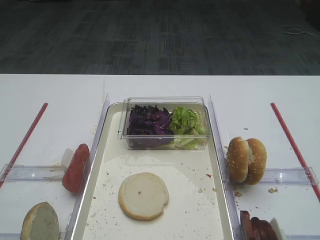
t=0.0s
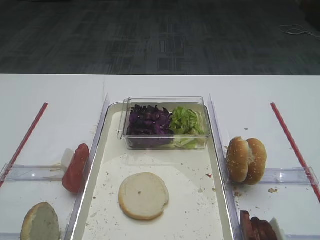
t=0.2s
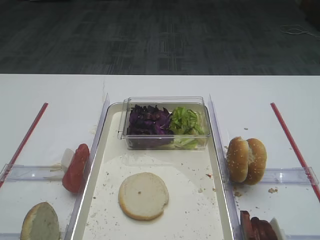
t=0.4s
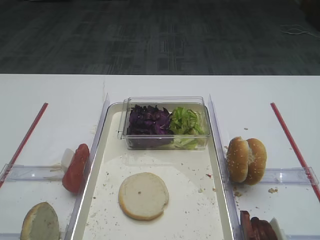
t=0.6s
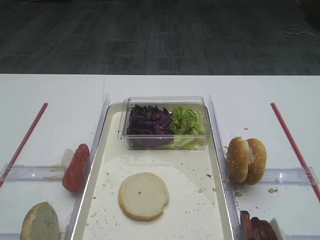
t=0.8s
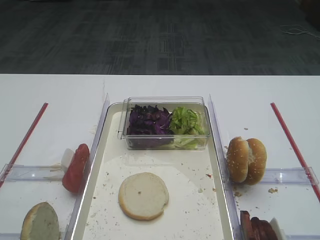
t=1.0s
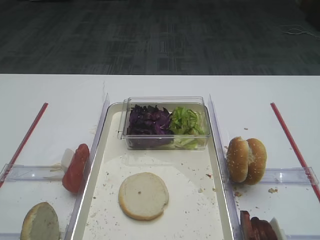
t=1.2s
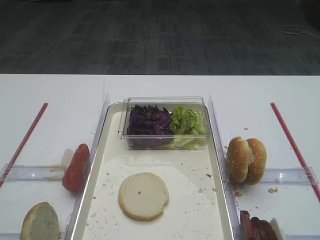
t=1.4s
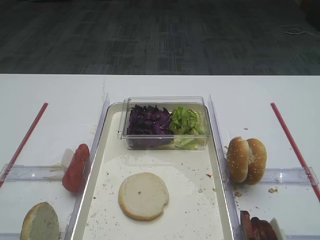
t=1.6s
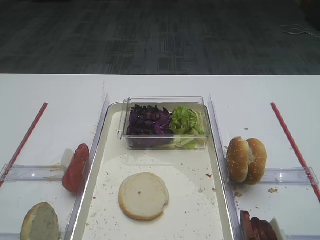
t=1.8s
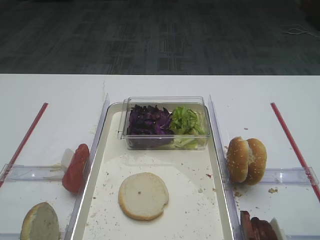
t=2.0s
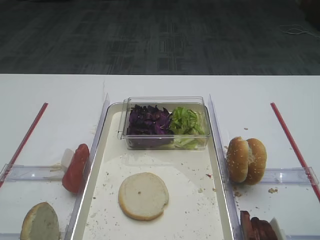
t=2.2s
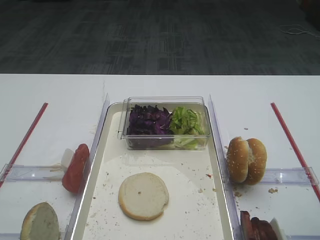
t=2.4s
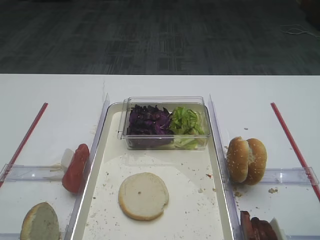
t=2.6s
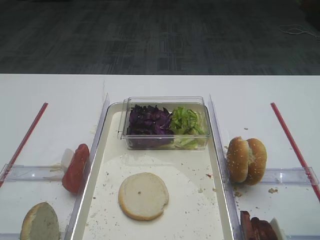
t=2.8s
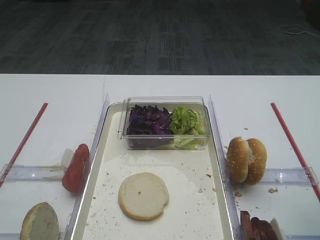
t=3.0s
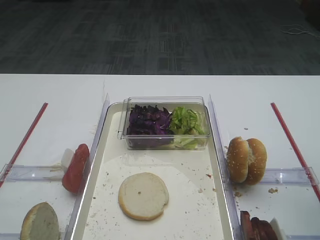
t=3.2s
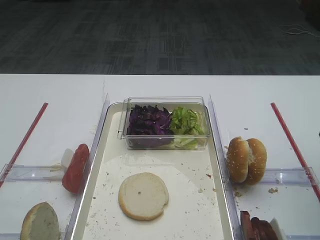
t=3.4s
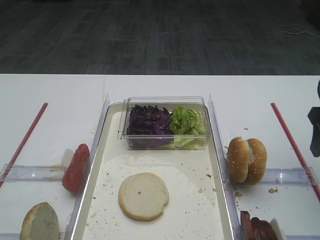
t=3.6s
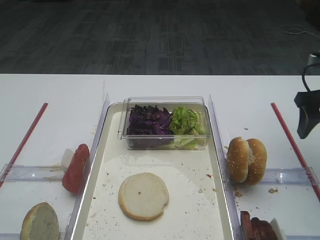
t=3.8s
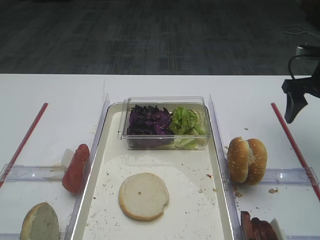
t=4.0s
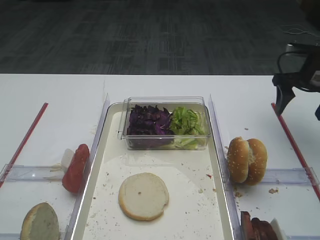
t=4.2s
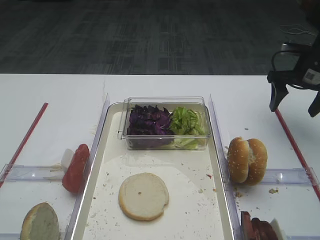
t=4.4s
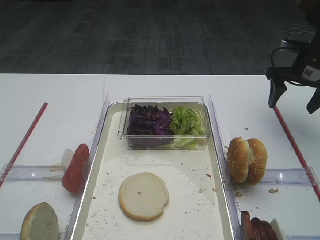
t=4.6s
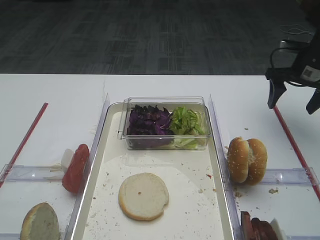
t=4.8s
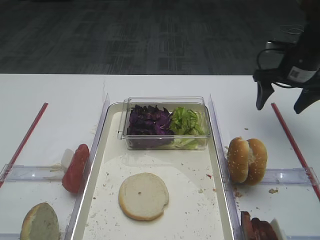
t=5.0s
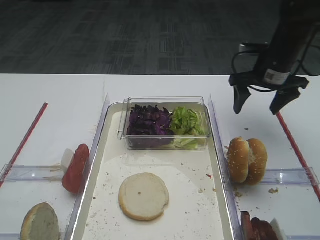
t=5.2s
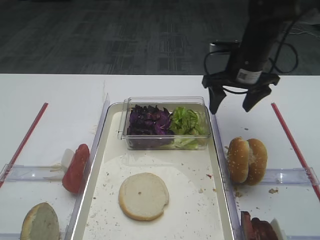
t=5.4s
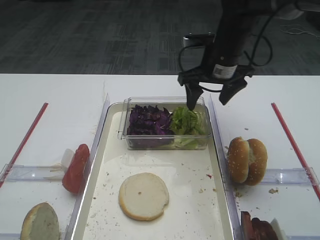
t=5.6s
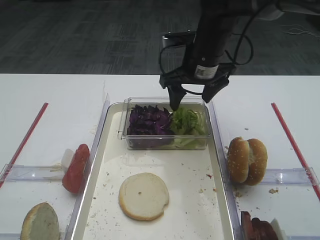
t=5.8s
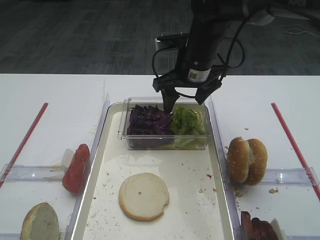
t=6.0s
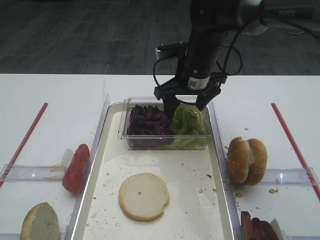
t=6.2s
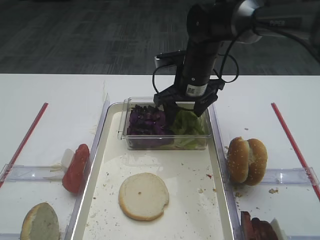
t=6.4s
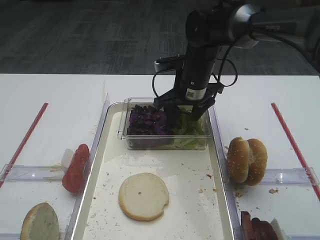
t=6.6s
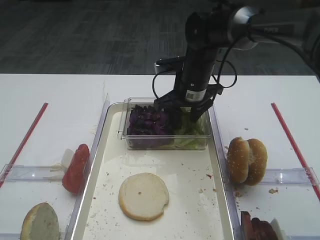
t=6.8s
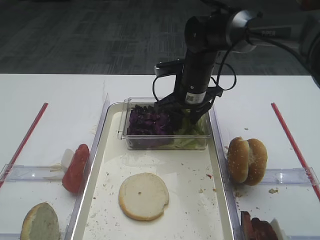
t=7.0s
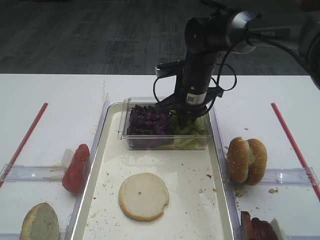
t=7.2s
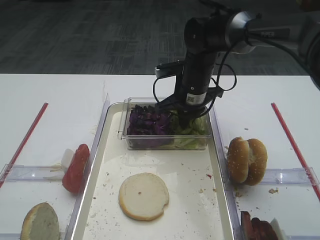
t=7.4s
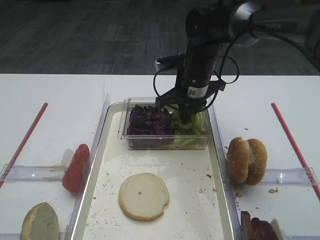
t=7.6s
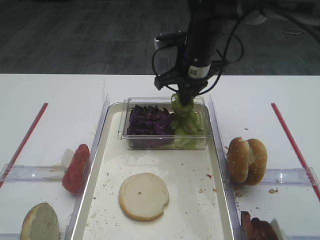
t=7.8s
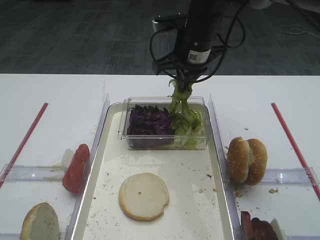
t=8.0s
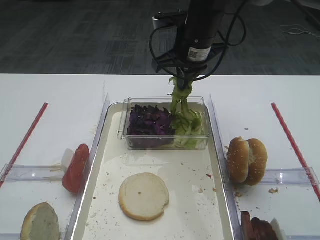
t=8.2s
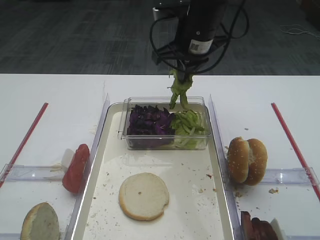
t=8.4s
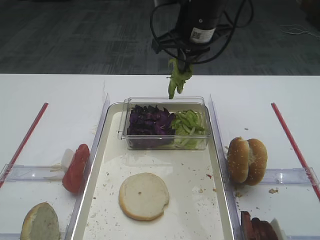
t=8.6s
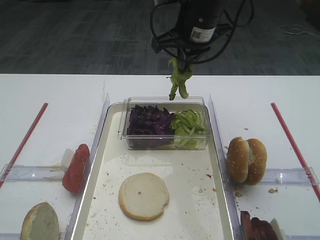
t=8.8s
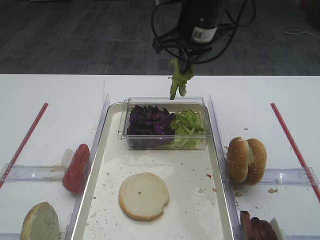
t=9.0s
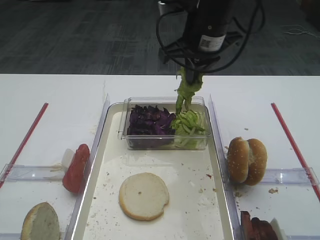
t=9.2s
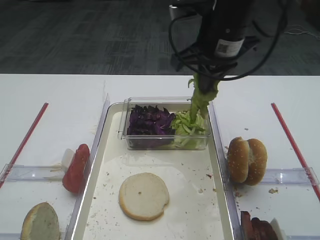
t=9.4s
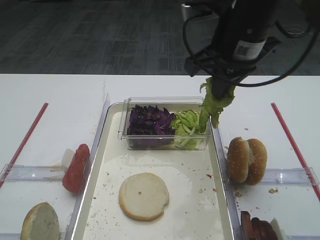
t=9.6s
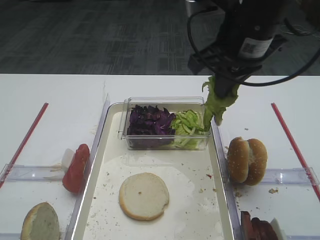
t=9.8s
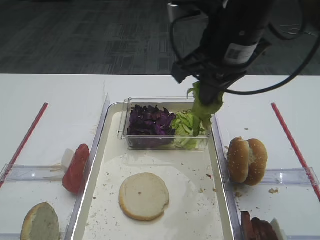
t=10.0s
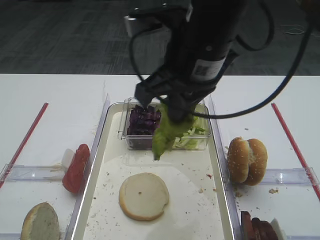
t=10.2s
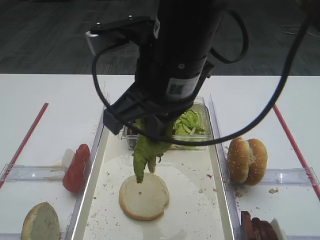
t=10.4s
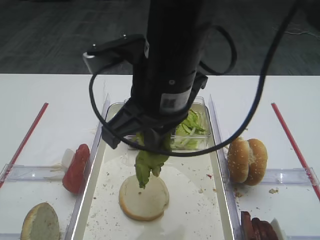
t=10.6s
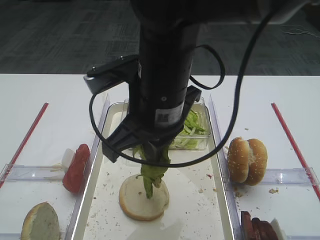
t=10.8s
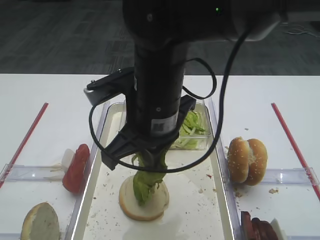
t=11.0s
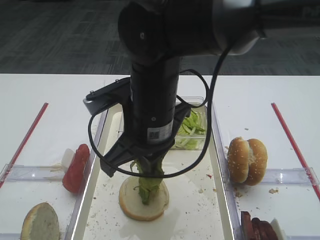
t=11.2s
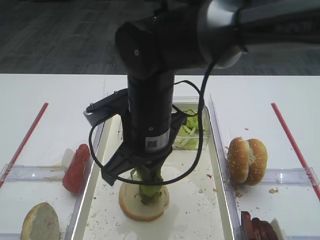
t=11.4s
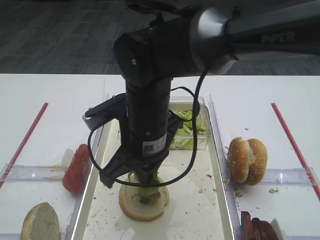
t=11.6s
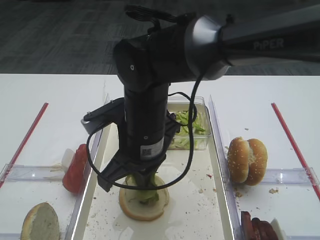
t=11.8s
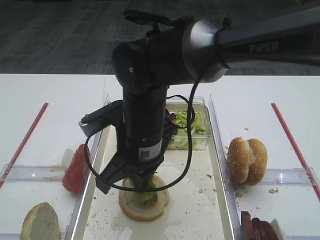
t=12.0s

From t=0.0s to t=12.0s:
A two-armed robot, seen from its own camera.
Step, from t=0.0s to t=7.4s: Pick up the lettuce leaf with the right gripper.
From t=3.0s to t=4.4s: The right gripper shifts roughly 25 cm forward.
From t=4.4s to t=6.0s: The right gripper is displaced to the left by about 25 cm.
From t=6.0s to t=7.6s: The right gripper closes up.
From t=7.6s to t=9.0s: The right gripper moves upward, about 10 cm.
From t=9.0s to t=10.4s: The right gripper shifts about 20 cm backward.
From t=10.4s to t=12.0s: The right gripper travels downward by approximately 15 cm.

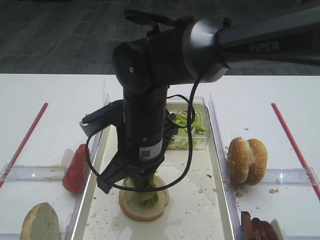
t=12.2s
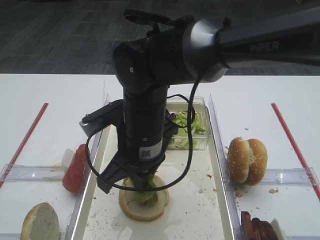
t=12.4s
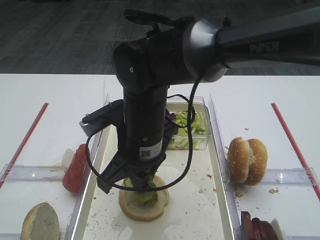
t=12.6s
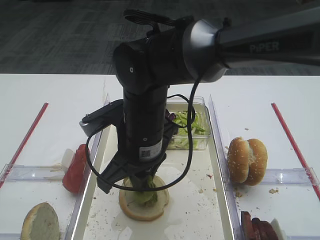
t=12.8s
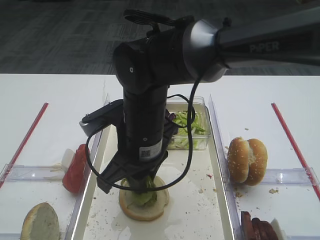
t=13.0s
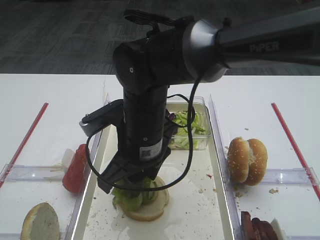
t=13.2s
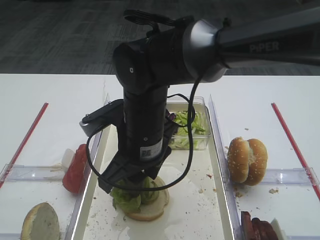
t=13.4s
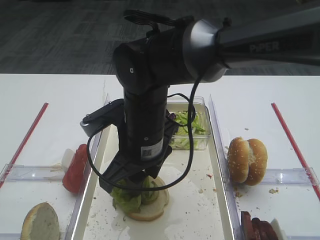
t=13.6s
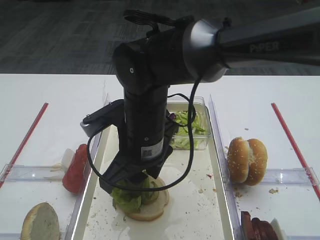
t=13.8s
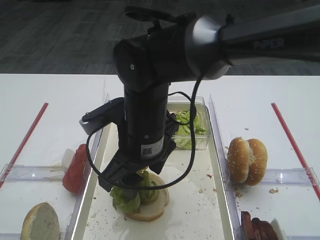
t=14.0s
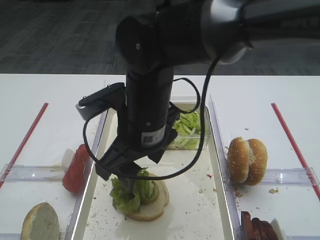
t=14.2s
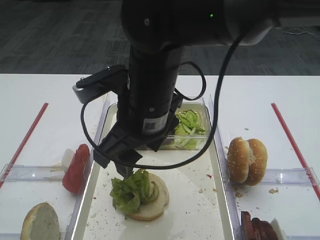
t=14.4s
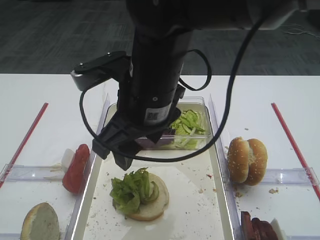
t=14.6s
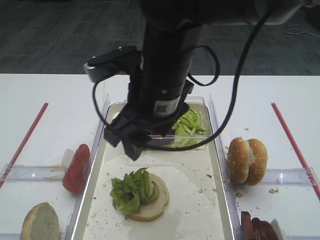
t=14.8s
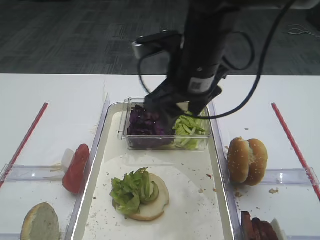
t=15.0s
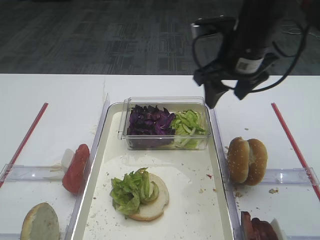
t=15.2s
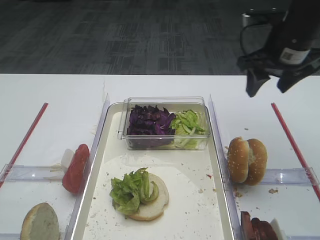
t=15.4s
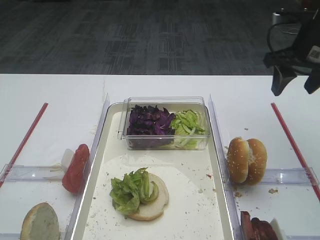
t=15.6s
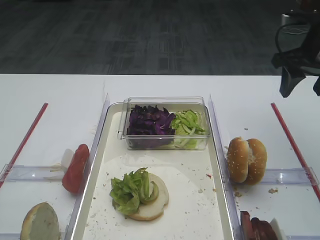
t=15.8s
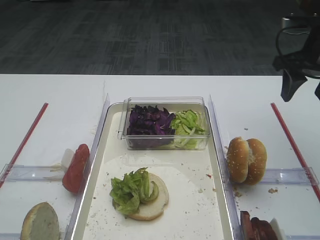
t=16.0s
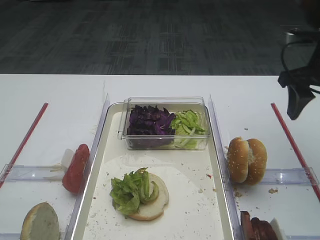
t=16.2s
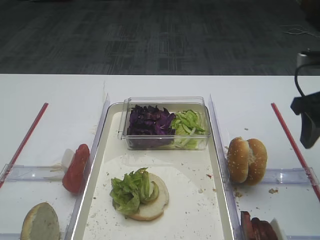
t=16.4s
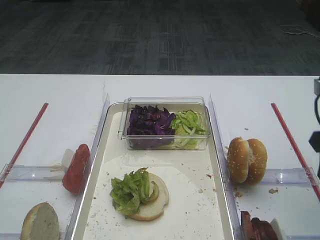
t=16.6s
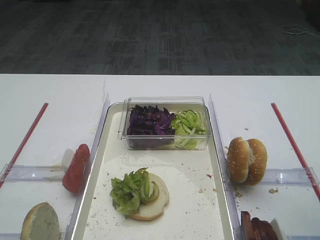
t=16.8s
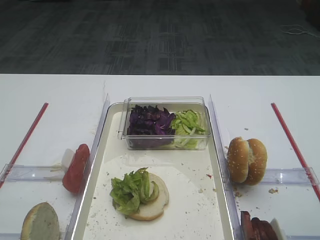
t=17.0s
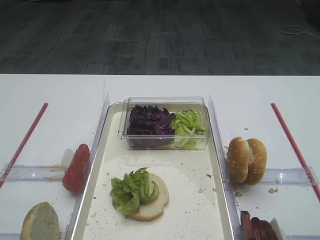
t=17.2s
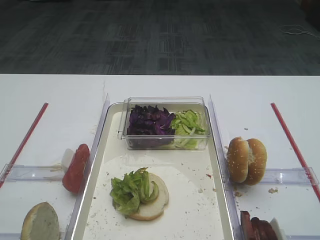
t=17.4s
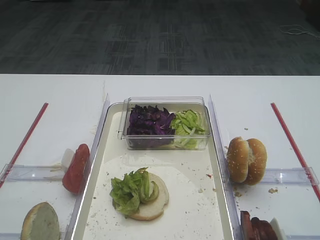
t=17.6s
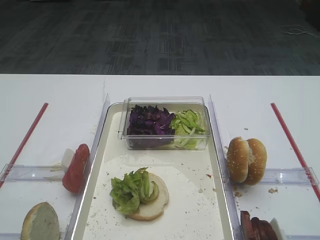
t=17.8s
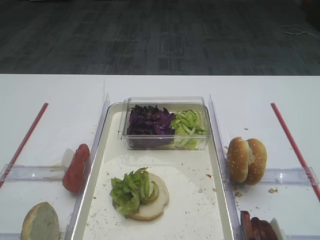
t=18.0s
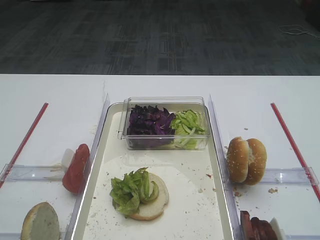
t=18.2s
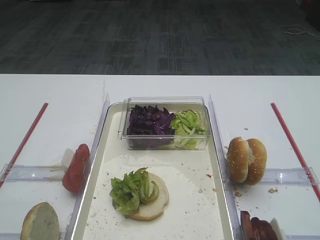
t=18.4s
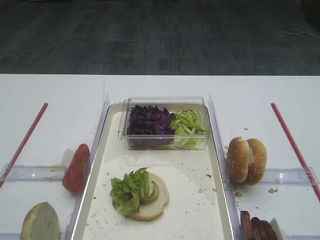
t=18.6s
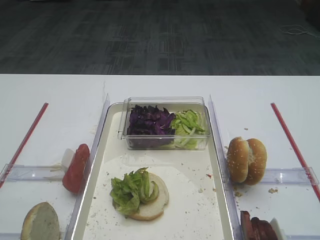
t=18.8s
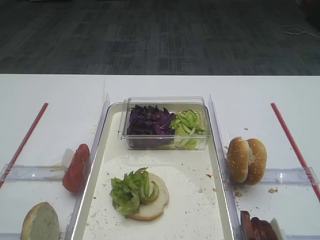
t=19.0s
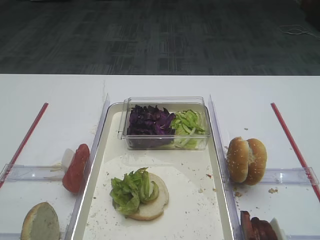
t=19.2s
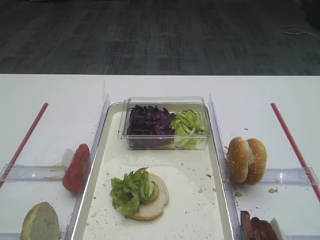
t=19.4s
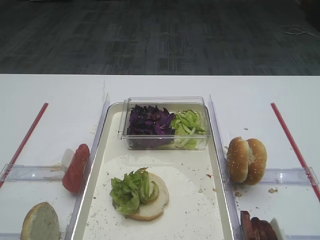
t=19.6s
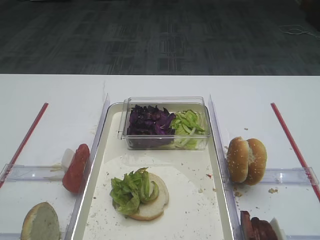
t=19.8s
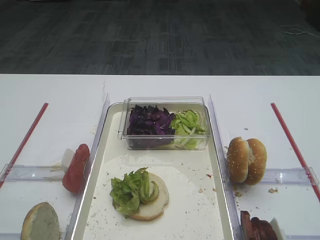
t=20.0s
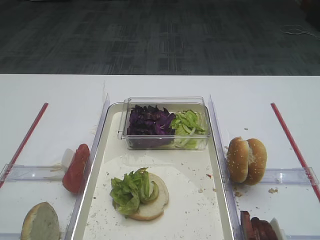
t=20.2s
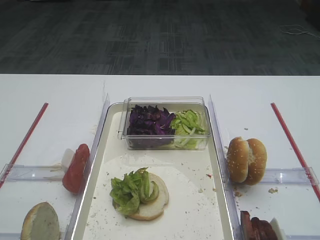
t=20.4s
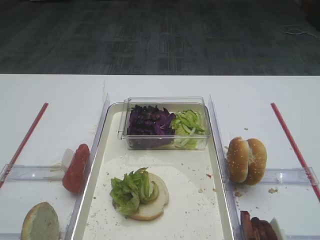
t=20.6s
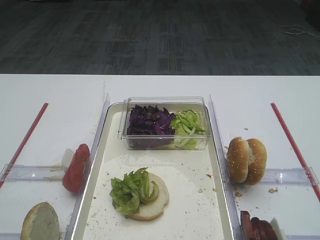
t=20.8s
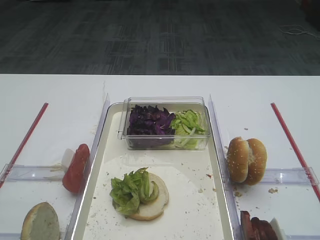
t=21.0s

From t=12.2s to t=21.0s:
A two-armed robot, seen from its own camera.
Step, from t=12.2s to t=15.4s: Place the lettuce leaf on the bread slice with the right gripper.
From t=12.2s to t=13.6s: The right gripper opens its fingers.
From t=13.6s to t=15.2s: The right gripper heads to the right, forward and upward, covering some 20 cm.
From t=15.2s to t=16.6s: The right gripper shifts roughly 20 cm to the right and backward.
From t=16.6s to t=18.0s: The right gripper moves backward, roughly 20 cm.
From t=18.0s to t=21.0s: The two grippers keep their place.

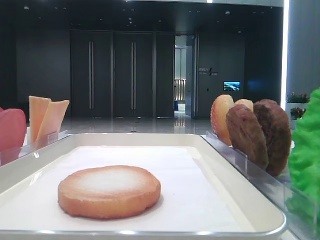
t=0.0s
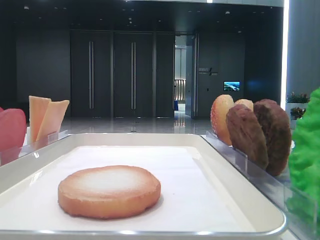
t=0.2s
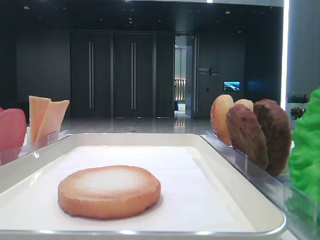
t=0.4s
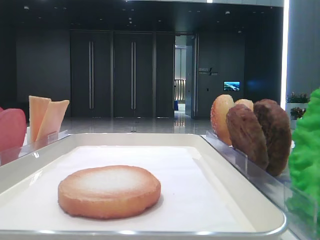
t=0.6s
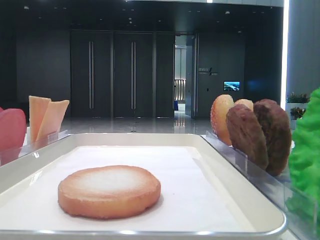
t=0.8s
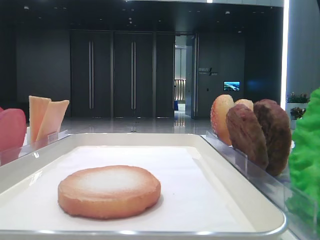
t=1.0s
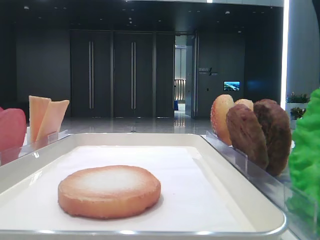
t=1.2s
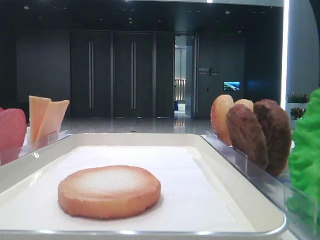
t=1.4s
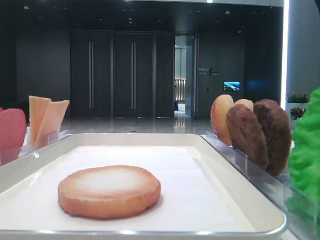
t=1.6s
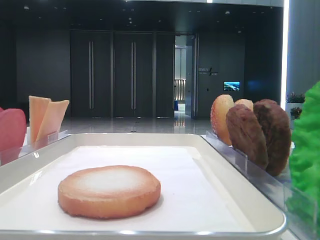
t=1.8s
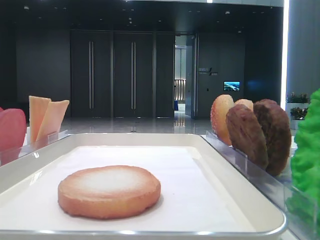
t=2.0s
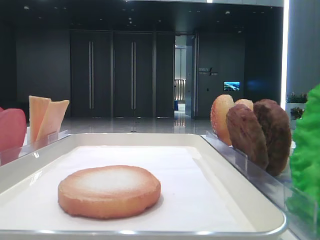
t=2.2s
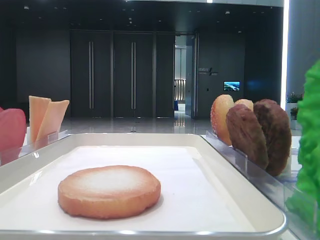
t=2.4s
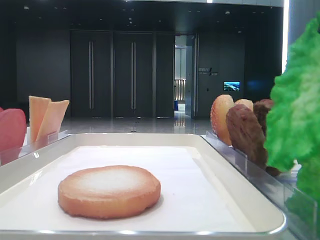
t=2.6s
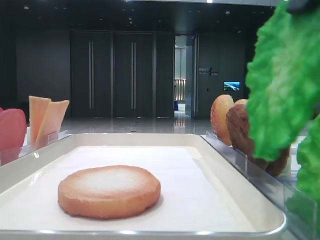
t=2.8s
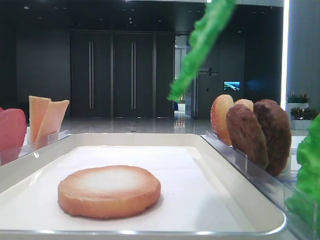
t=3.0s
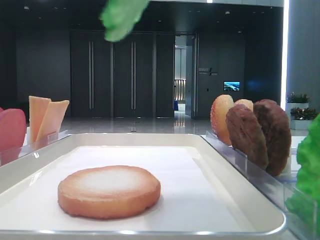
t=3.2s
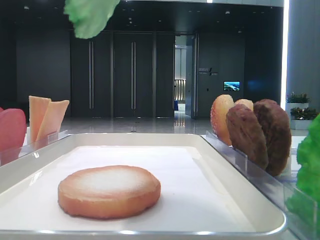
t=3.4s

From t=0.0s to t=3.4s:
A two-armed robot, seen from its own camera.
From t=1.6s to t=3.4s: The right gripper goes approximately 10 cm upward and to the left, and closes.
